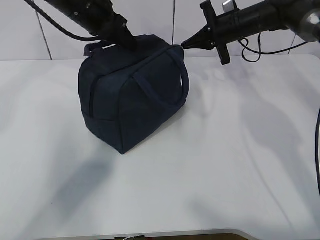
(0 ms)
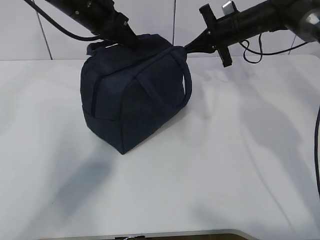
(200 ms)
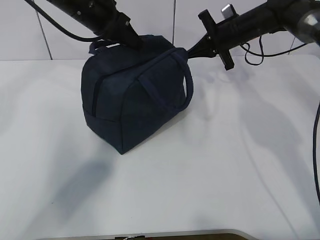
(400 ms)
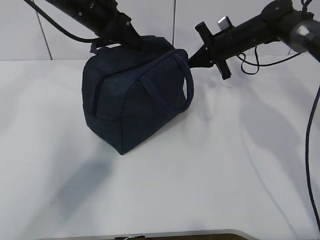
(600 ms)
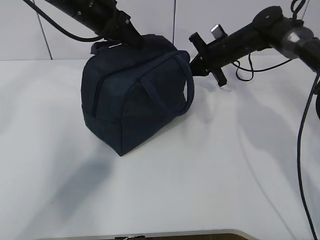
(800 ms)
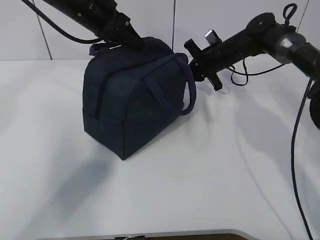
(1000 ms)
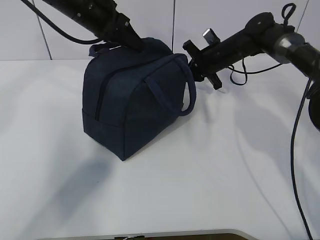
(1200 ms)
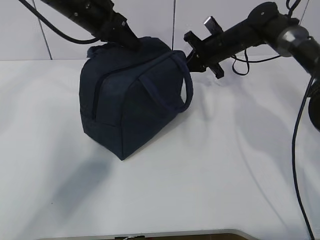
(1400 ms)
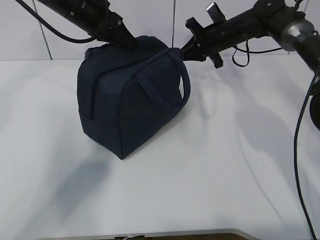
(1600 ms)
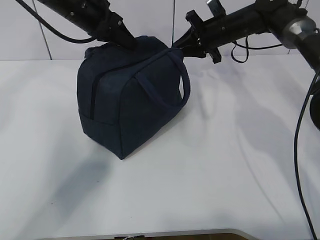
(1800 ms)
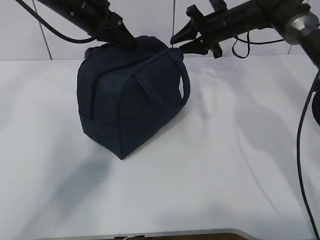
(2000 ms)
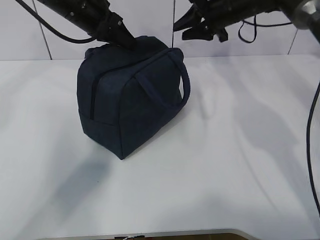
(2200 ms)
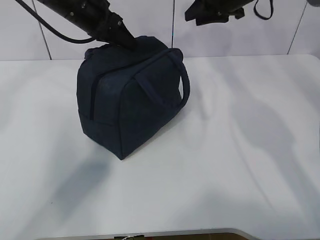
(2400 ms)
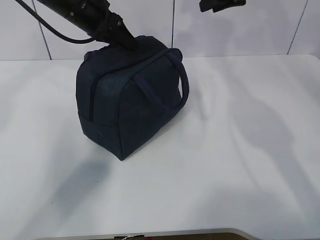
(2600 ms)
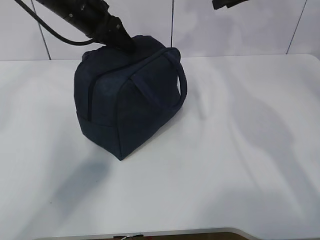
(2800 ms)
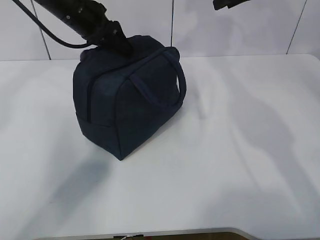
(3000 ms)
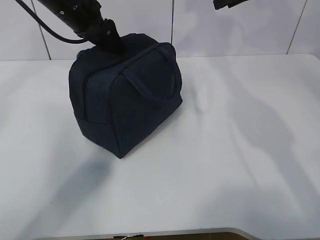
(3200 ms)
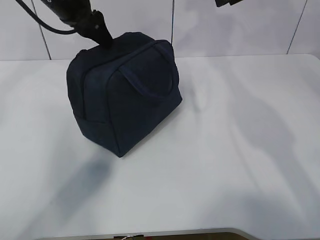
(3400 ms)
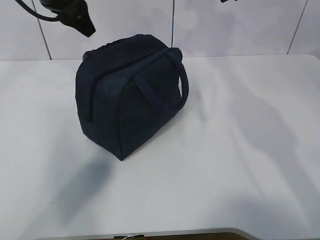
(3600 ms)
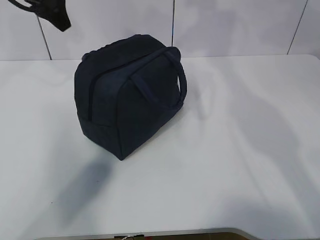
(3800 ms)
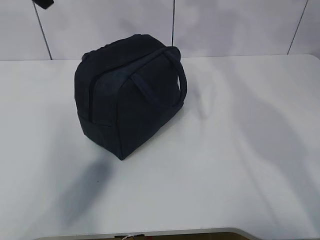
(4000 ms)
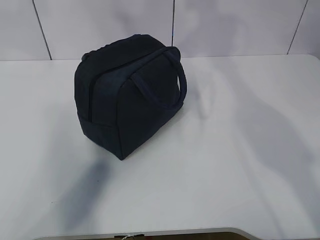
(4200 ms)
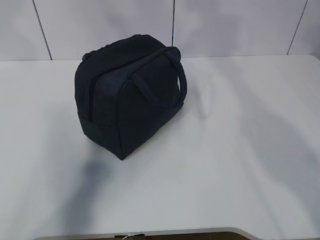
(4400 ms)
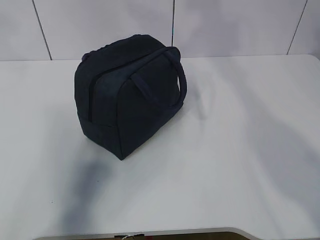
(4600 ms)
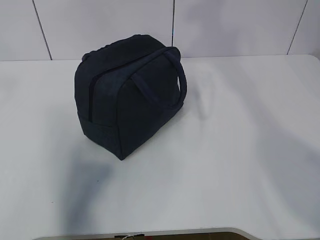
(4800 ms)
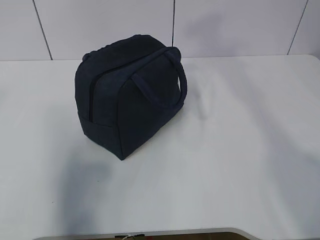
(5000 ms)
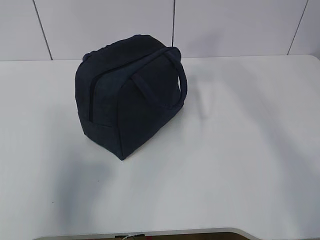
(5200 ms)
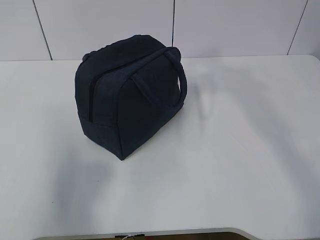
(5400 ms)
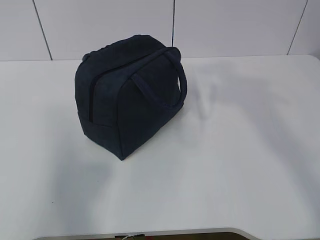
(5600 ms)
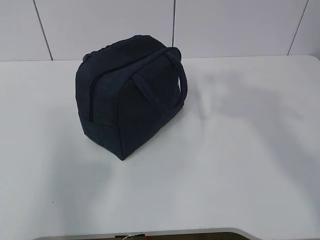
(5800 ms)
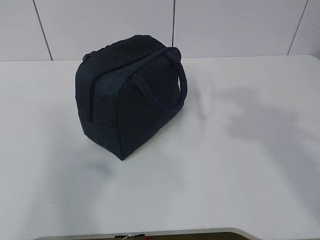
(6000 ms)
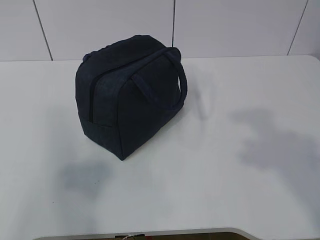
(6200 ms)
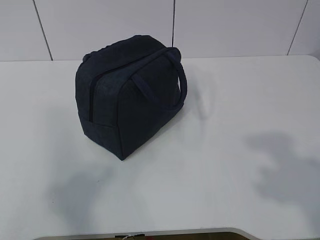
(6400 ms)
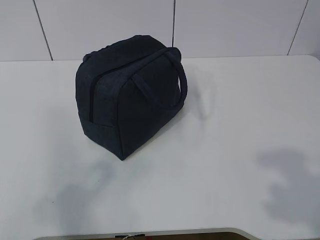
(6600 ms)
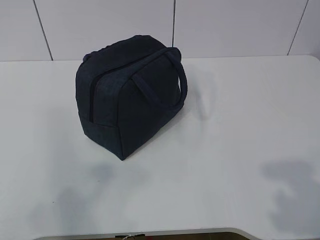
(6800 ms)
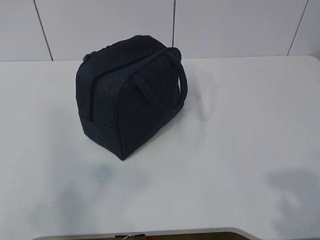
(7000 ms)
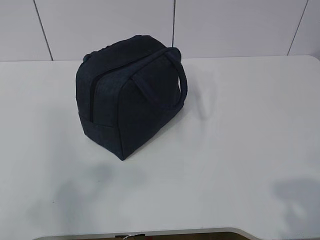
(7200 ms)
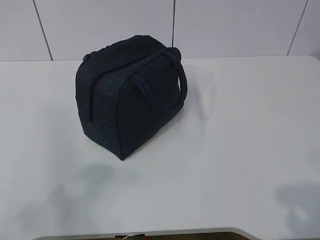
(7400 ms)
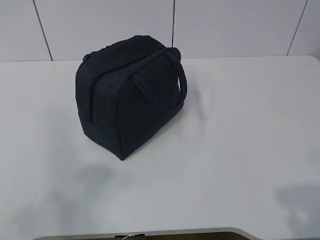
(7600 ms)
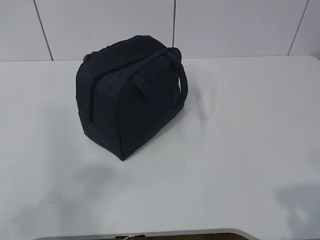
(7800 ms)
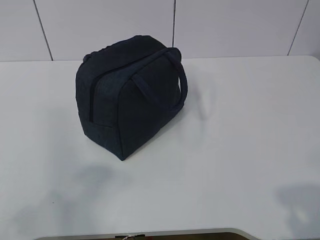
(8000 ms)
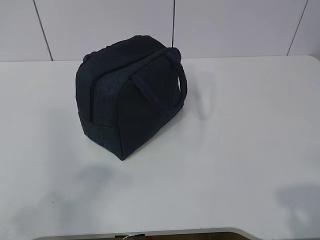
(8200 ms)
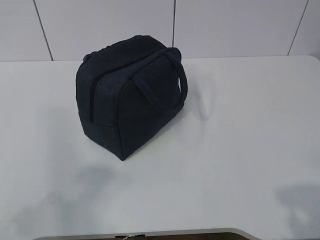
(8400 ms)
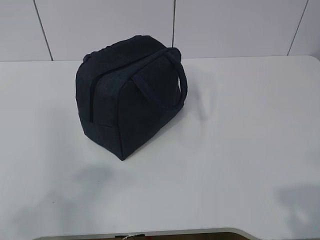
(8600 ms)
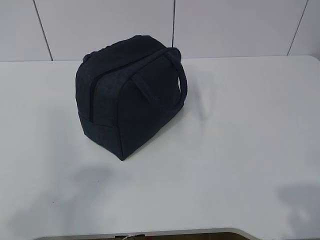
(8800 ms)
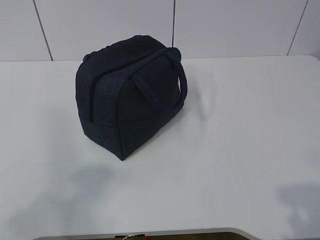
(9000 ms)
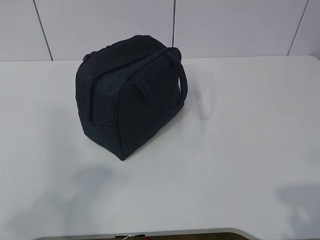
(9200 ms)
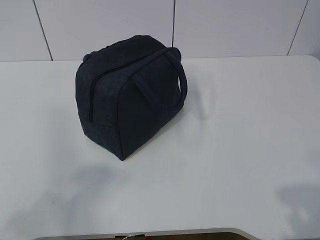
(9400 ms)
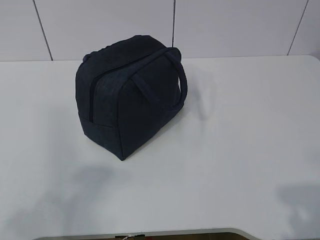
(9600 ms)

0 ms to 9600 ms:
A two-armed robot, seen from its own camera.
1600 ms to 3200 ms: The right gripper is displaced upward by approximately 15 cm, and opens up; the left gripper opens up.
3200 ms to 4800 ms: The left gripper moves backward, upward and to the left, some 30 cm; the right gripper shifts approximately 30 cm backward and upward.
4800 ms to 6400 ms: The left gripper goes some 25 cm backward.
6400 ms to 8000 ms: The right gripper shifts about 10 cm downward.
